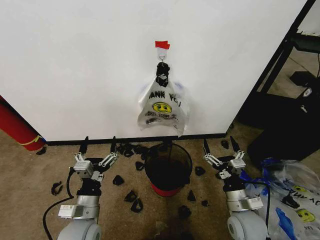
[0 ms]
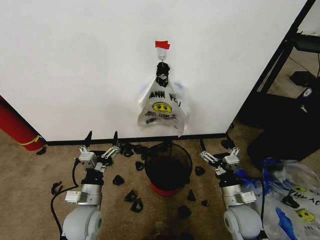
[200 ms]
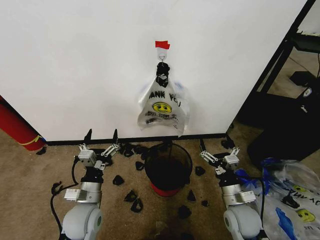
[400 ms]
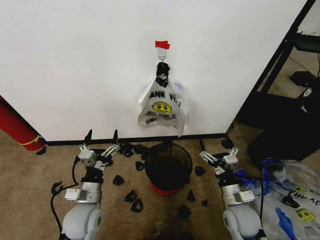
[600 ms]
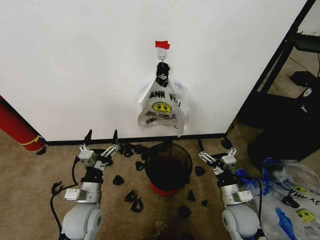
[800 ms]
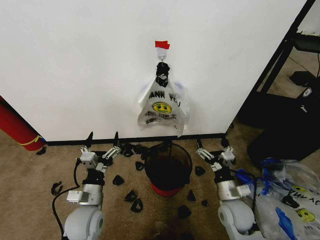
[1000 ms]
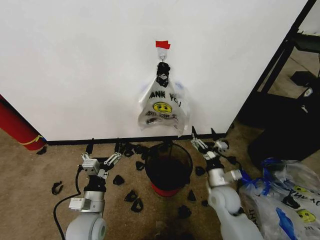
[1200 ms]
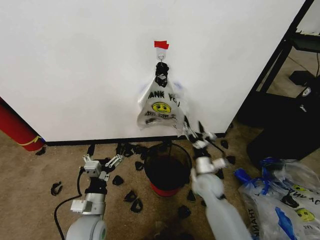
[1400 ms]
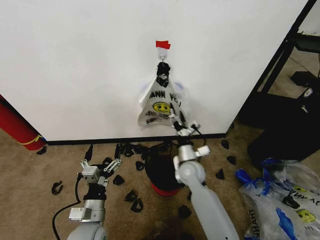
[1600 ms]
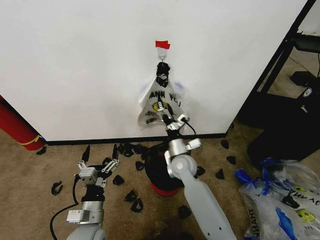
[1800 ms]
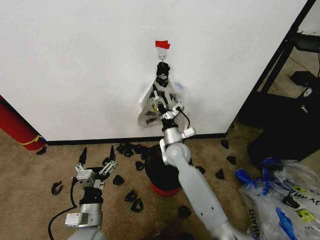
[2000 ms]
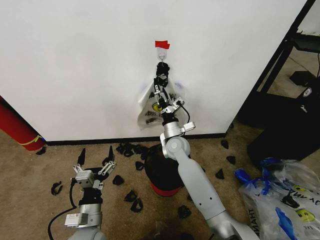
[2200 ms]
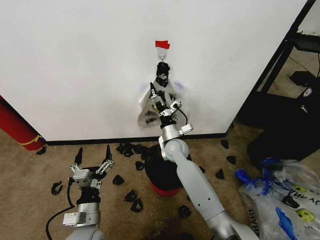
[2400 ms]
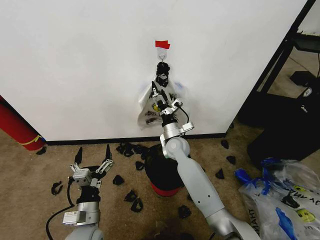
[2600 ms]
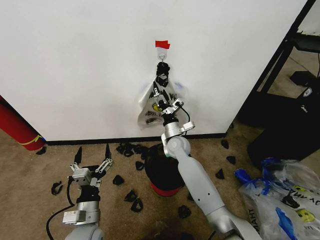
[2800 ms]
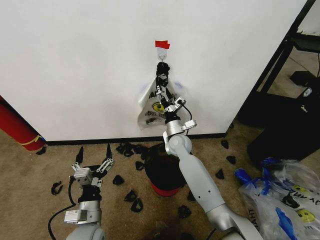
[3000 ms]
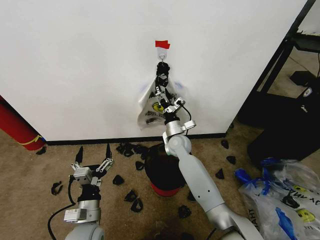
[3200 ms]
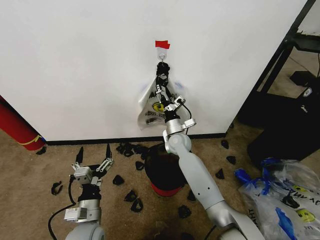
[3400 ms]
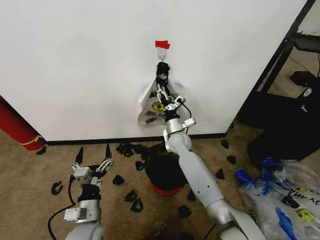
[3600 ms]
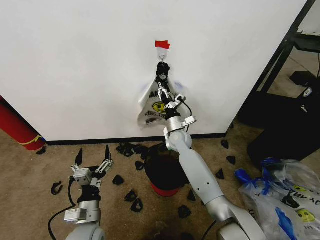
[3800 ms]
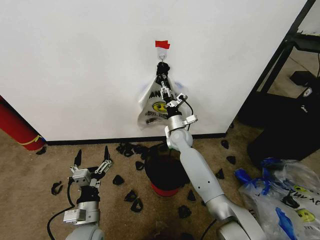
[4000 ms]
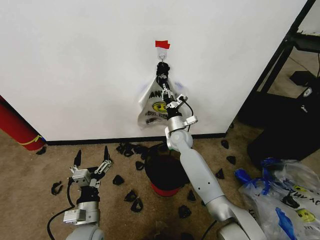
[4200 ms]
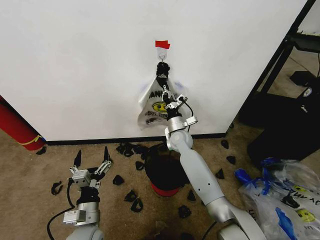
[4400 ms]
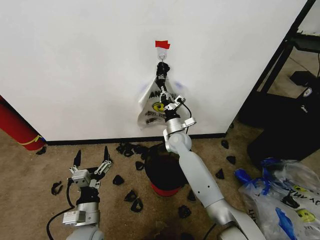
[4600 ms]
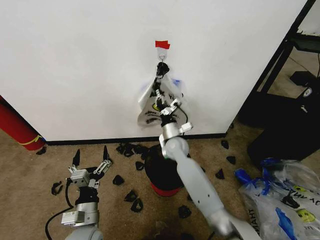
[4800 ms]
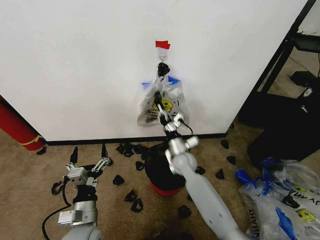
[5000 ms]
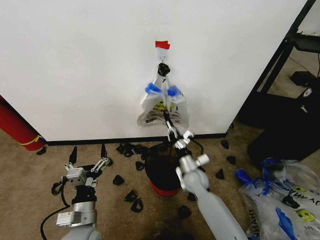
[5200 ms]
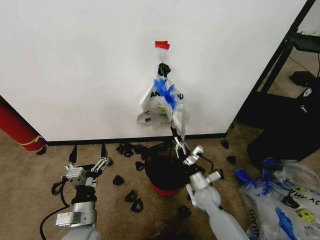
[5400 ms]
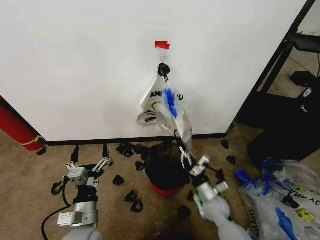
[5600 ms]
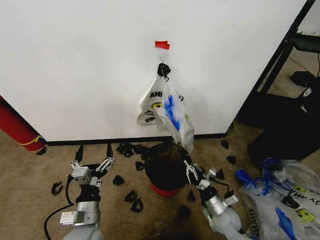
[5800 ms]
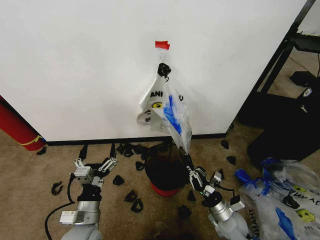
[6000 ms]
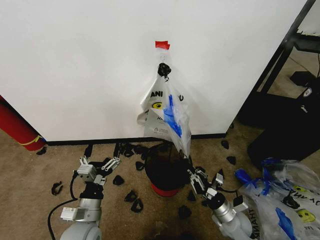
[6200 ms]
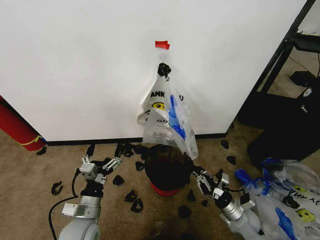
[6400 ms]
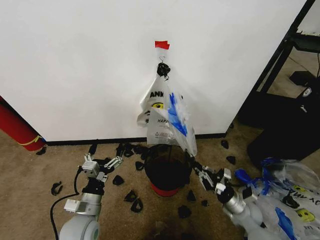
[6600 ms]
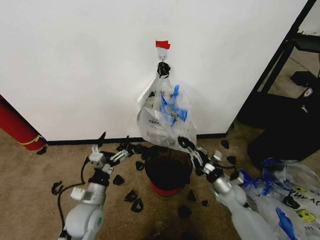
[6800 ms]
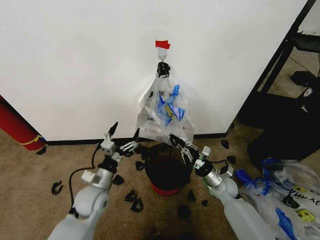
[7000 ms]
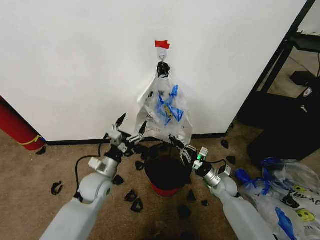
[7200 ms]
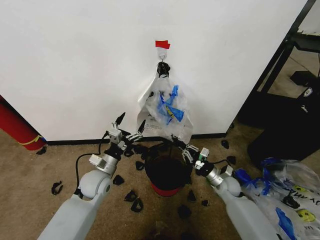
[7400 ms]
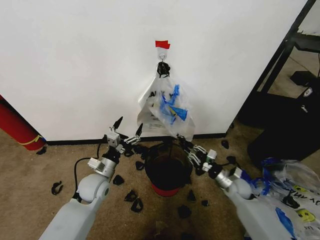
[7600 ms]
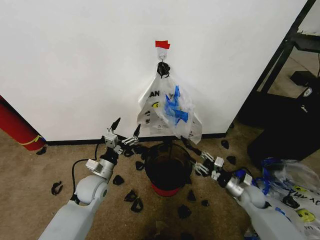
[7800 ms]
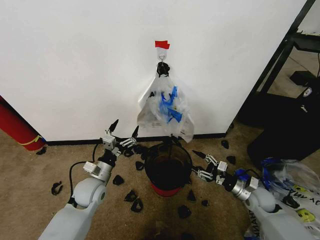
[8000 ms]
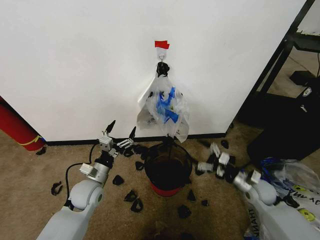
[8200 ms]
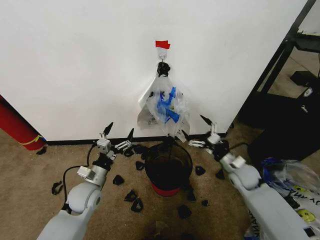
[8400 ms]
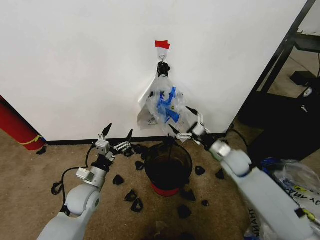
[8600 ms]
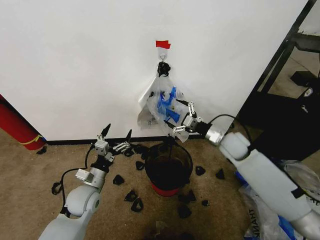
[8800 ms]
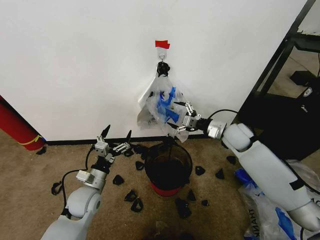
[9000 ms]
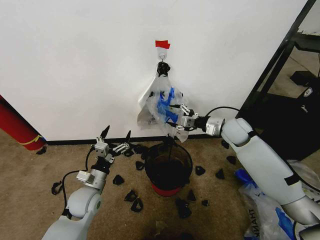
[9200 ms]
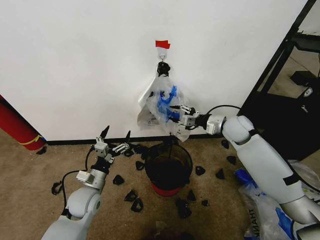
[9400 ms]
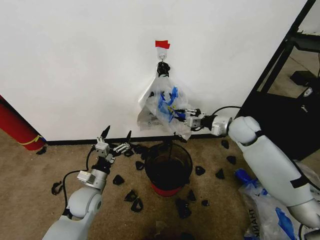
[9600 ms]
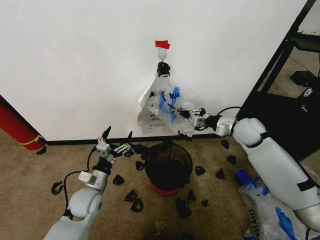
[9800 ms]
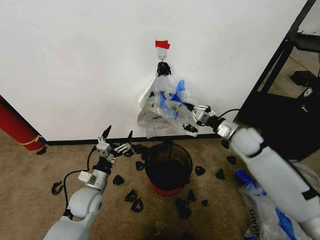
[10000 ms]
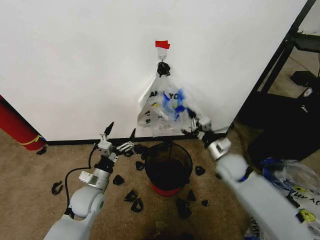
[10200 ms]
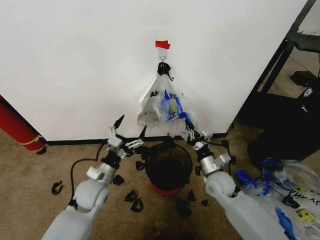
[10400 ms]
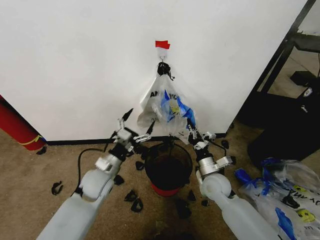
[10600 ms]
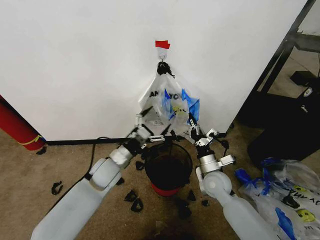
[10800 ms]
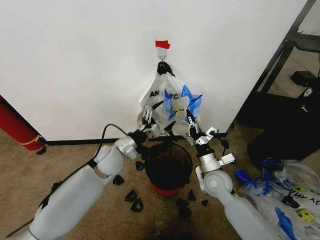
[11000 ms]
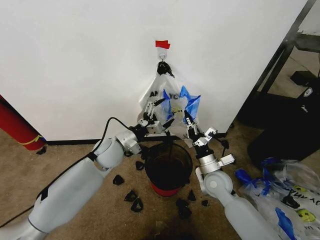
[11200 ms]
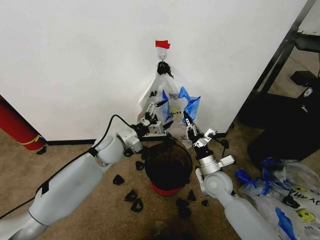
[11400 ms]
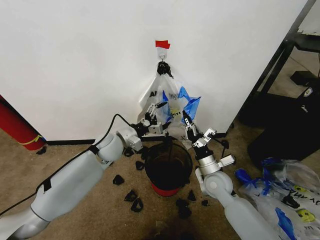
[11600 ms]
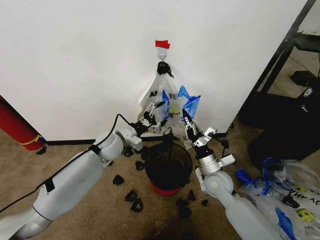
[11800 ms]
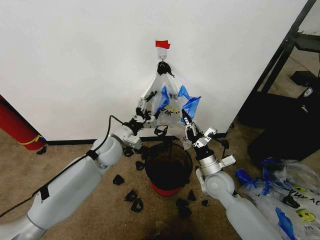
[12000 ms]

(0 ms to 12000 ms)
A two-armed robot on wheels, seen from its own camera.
Task of the whole recording: Pick up the garbage bag from the wall and place it over the trash bin.
1600 ms - 3000 ms: The right gripper travels forward by approximately 10 cm.
3000 ms - 4400 ms: The right gripper closes.
4400 ms - 6000 ms: The right gripper moves backward, to the right and downward, some 35 cm.
6000 ms - 7600 ms: The right gripper shifts roughly 15 cm forward and to the right, while the left gripper shifts about 15 cm forward.
7600 ms - 9000 ms: The right gripper moves upward and forward, some 25 cm, and opens.
9000 ms - 10400 ms: The right gripper travels downward, backward and to the left by roughly 20 cm, and closes up.
10400 ms - 12000 ms: The left gripper goes some 15 cm forward and upward.

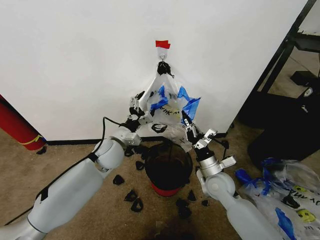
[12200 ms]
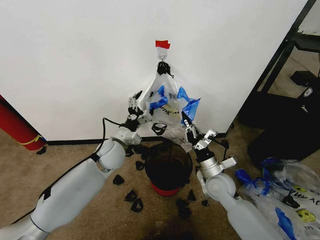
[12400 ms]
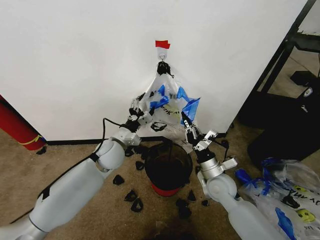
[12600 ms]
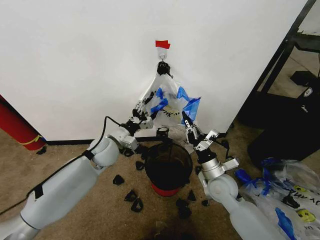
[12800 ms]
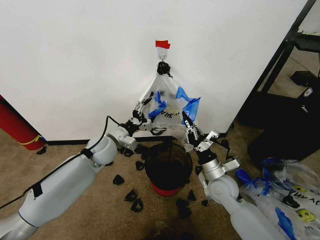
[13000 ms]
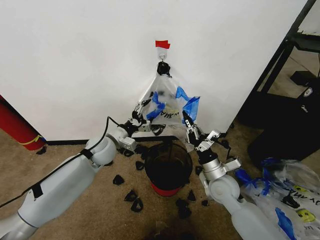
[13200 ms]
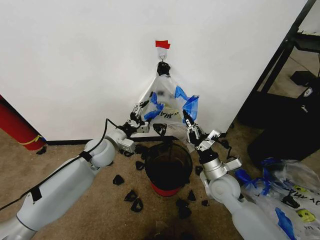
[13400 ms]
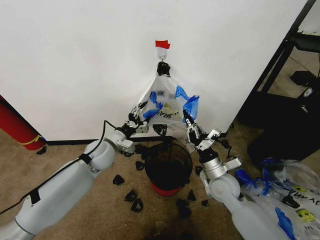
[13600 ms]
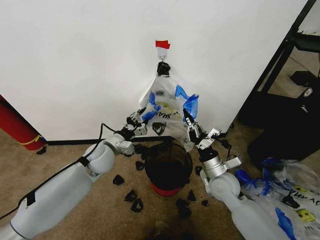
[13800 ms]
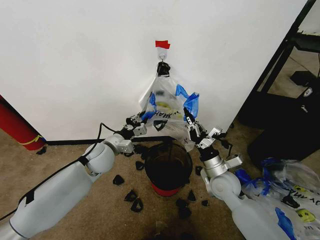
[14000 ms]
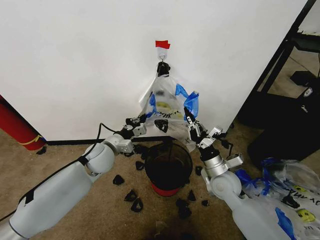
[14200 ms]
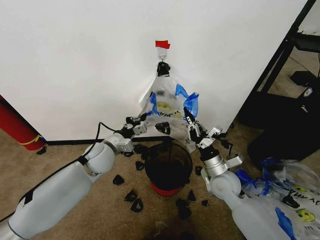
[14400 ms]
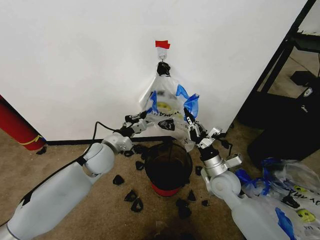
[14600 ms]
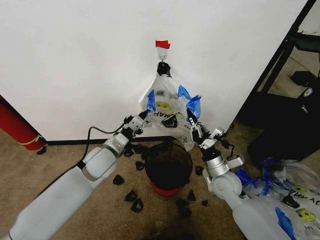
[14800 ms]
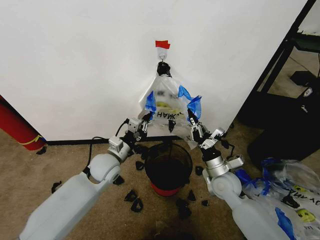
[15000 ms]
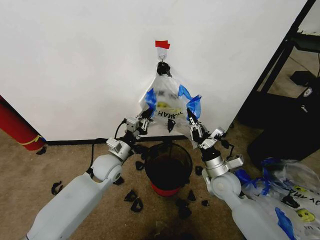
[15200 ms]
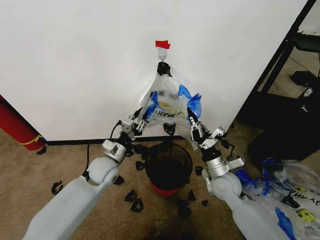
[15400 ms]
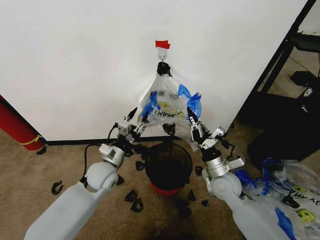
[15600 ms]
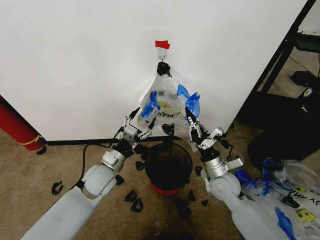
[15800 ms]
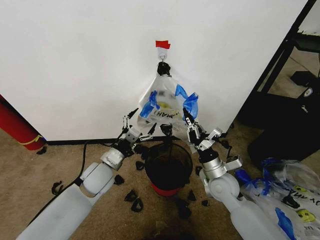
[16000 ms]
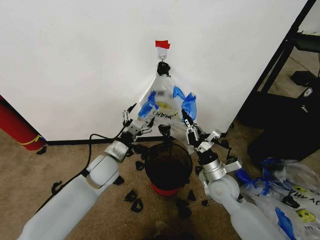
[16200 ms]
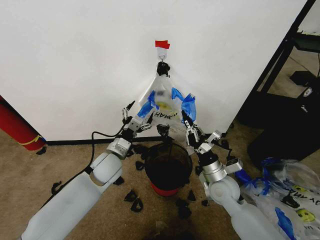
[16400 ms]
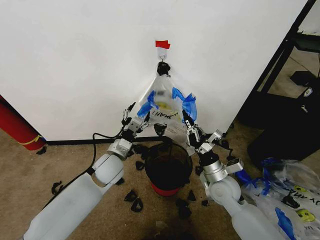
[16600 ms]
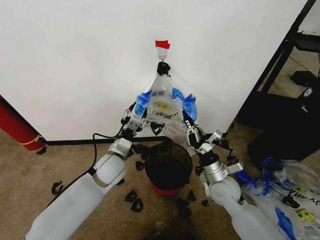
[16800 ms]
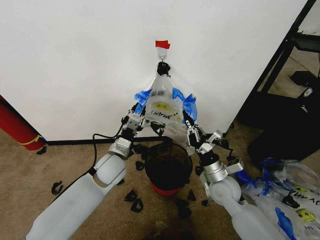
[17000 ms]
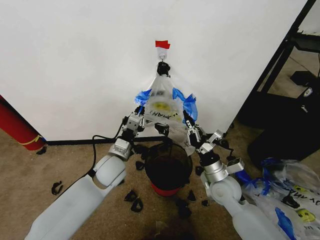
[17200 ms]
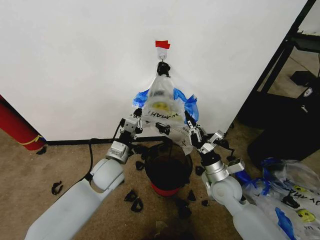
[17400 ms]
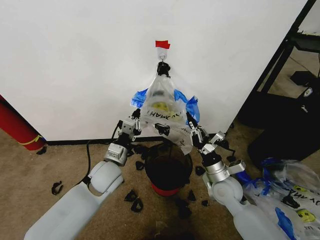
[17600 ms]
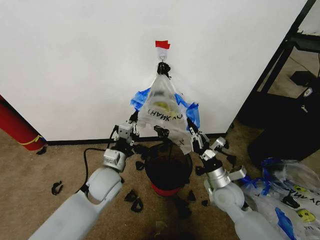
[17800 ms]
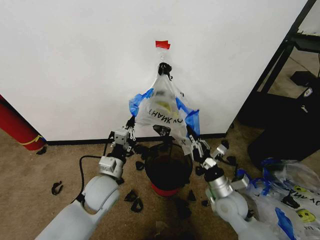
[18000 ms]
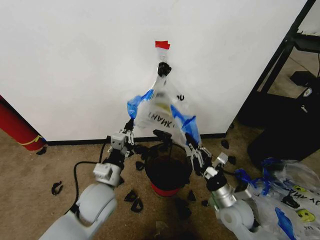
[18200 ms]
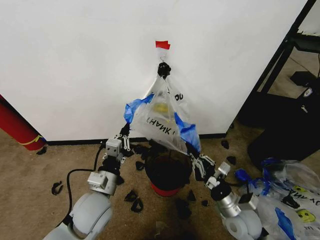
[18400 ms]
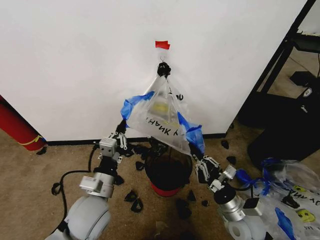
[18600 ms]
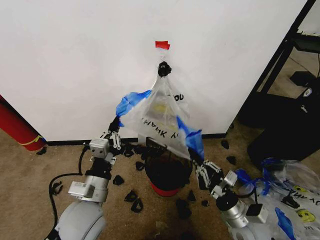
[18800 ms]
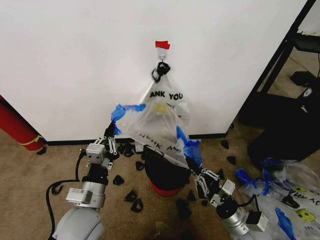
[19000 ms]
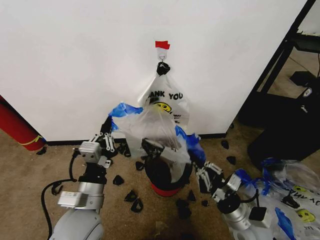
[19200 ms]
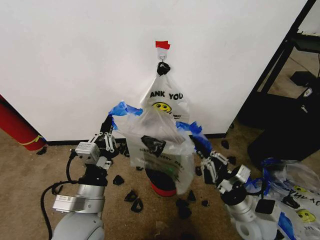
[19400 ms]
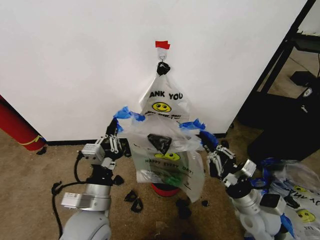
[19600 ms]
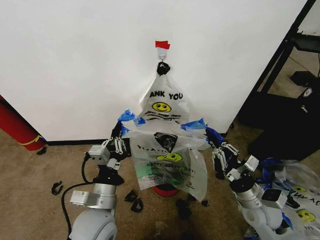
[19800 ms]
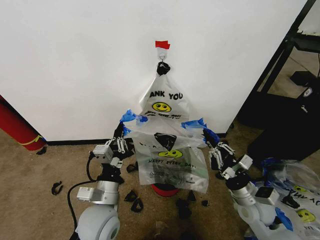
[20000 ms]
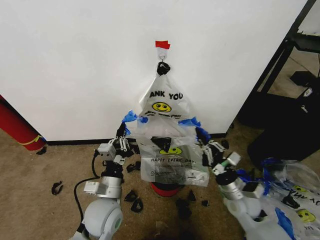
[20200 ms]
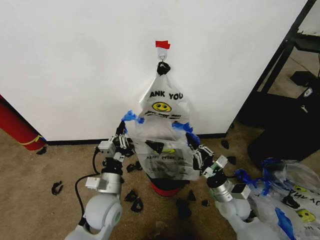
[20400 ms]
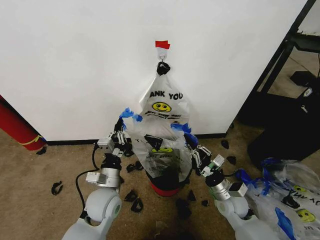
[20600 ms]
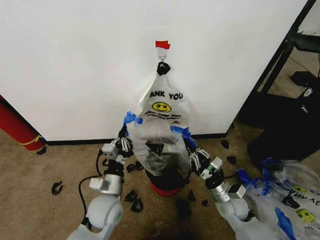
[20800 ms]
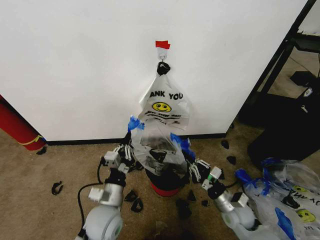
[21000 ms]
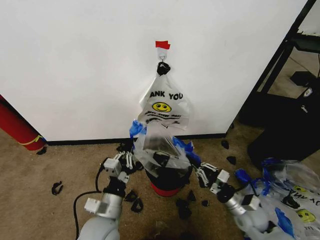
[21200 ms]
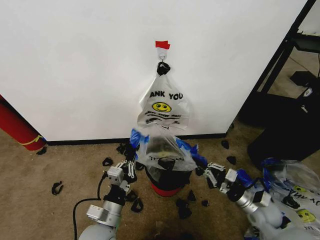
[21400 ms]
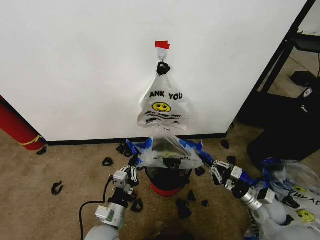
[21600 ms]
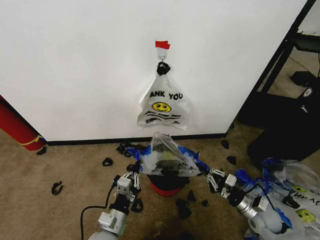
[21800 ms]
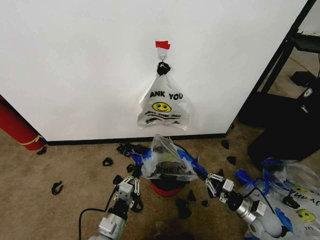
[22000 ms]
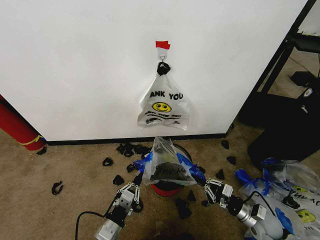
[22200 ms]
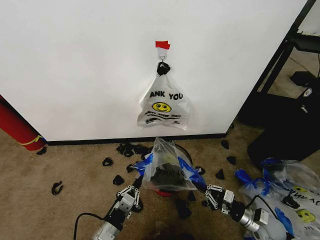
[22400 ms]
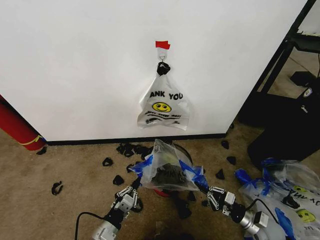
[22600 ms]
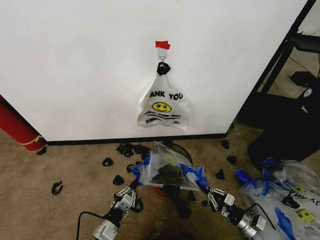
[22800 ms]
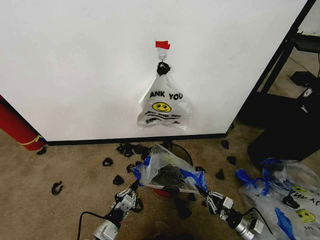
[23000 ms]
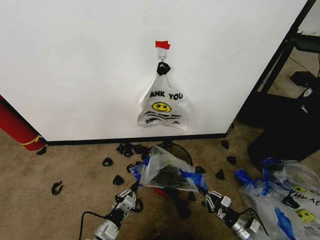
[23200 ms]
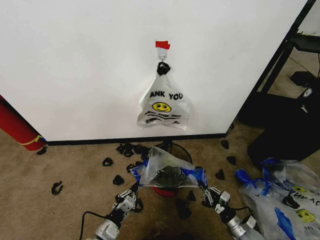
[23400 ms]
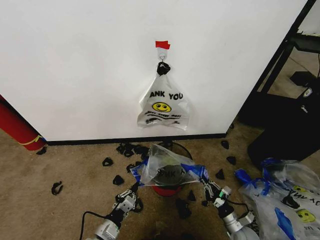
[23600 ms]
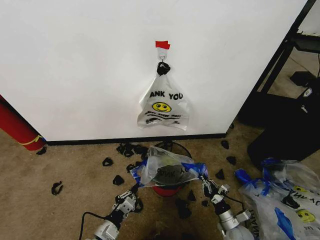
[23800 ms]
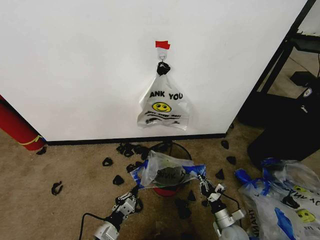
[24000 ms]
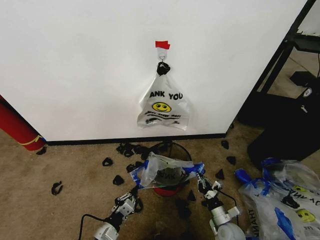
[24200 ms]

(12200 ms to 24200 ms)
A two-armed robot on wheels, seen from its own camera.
Task of the whole recording: Pick up the garbage bag from the wall and place it over the trash bin.
12200 ms - 13800 ms: The left gripper closes up.
13800 ms - 15200 ms: The left gripper closes up.
15200 ms - 16600 ms: The left gripper opens up.
16600 ms - 18200 ms: The right gripper heads backward, covering about 5 cm. Meanwhile the left gripper goes approximately 10 cm backward, and closes its fingers.
18200 ms - 19800 ms: The left gripper shifts roughly 5 cm backward. Meanwhile the right gripper goes approximately 5 cm to the right.
19800 ms - 21200 ms: Both grippers move downward, some 5 cm. The left gripper goes forward and returns, some 10 cm each way.
21200 ms - 22600 ms: The left gripper heads downward, covering roughly 10 cm. Meanwhile the right gripper heads to the right and downward, covering roughly 10 cm.
22600 ms - 24200 ms: The right gripper moves to the left and downward, approximately 10 cm.
